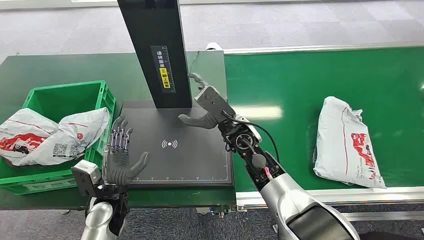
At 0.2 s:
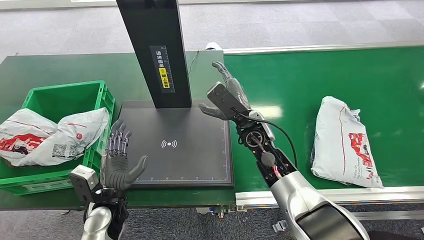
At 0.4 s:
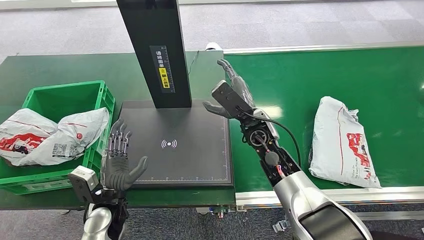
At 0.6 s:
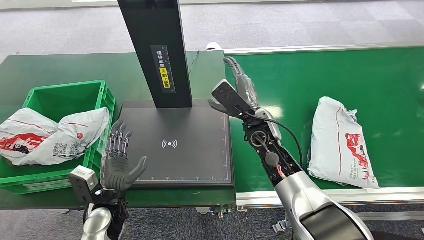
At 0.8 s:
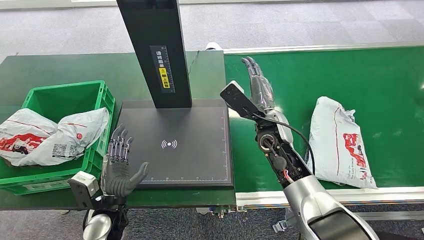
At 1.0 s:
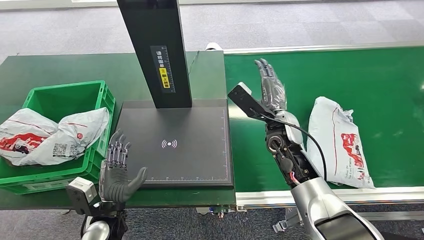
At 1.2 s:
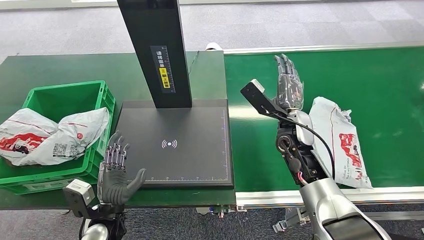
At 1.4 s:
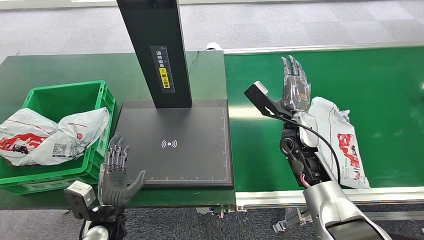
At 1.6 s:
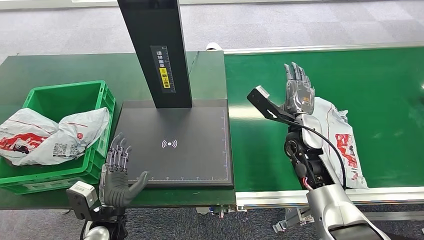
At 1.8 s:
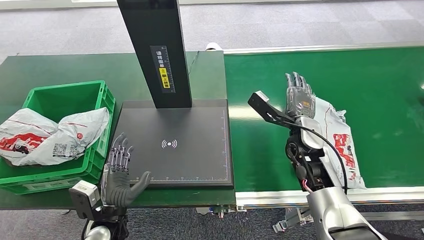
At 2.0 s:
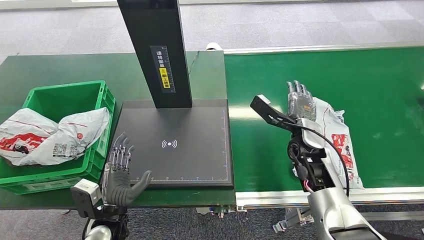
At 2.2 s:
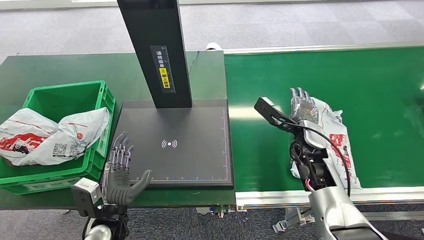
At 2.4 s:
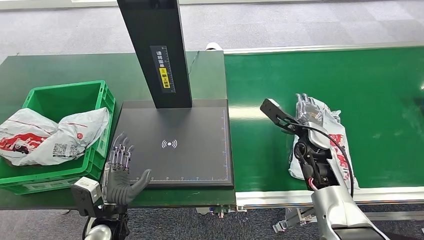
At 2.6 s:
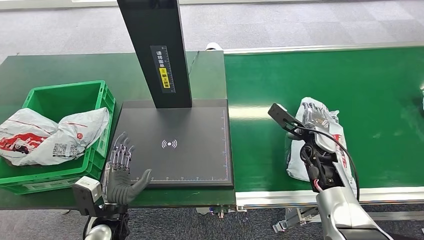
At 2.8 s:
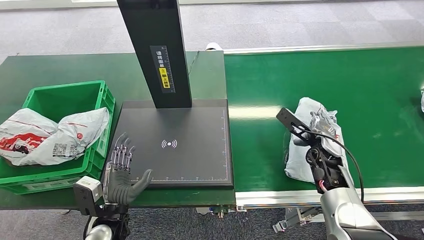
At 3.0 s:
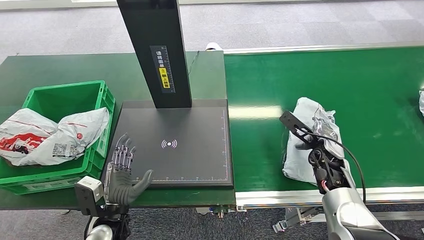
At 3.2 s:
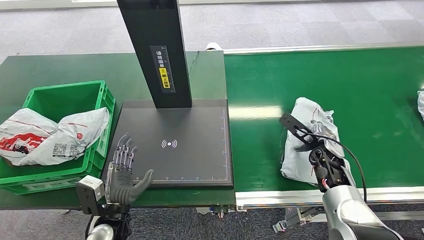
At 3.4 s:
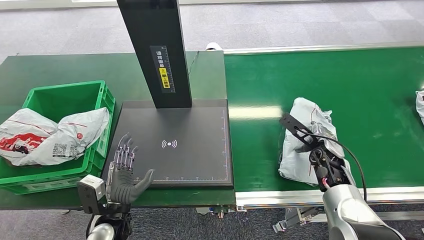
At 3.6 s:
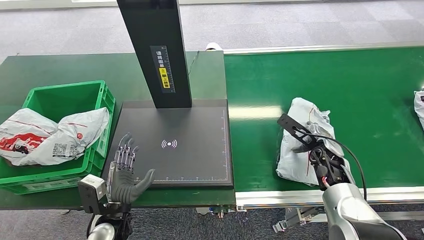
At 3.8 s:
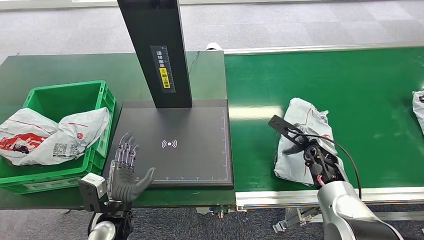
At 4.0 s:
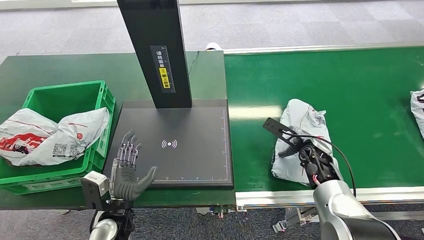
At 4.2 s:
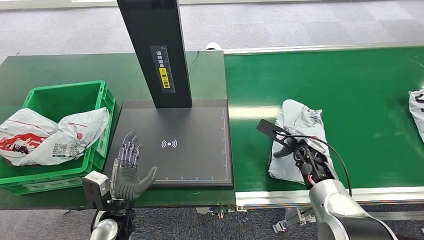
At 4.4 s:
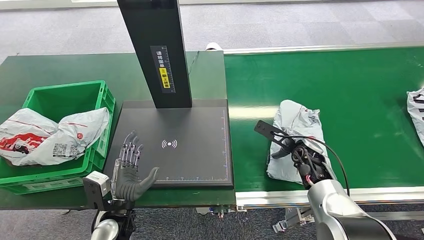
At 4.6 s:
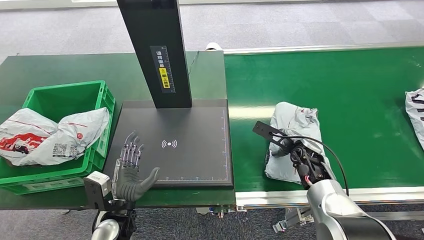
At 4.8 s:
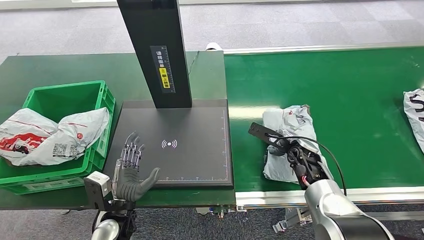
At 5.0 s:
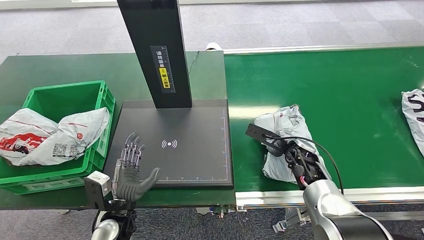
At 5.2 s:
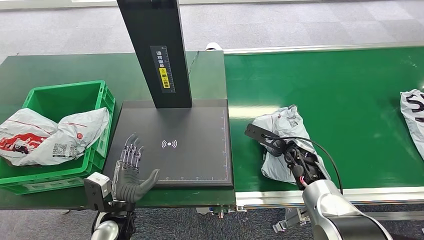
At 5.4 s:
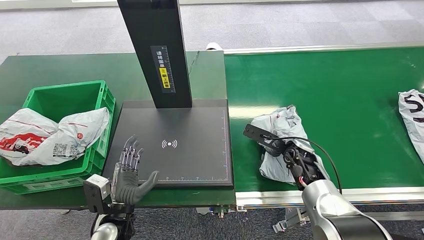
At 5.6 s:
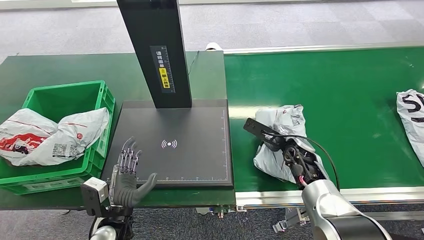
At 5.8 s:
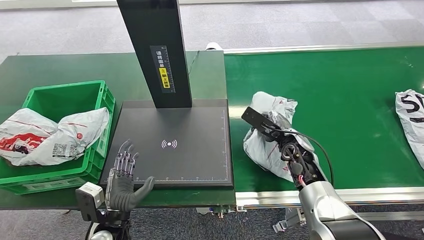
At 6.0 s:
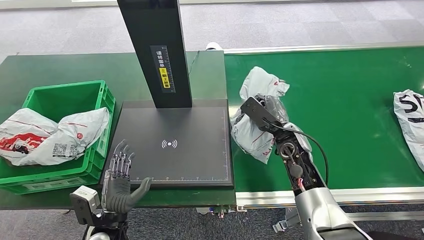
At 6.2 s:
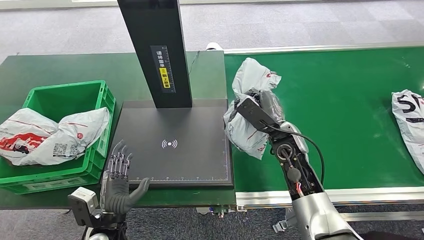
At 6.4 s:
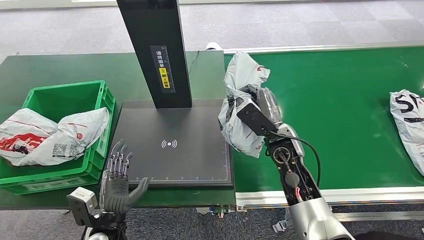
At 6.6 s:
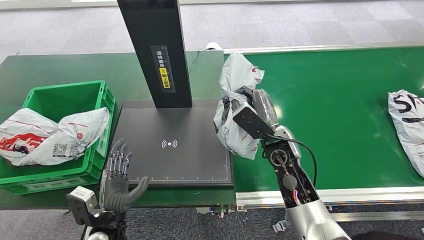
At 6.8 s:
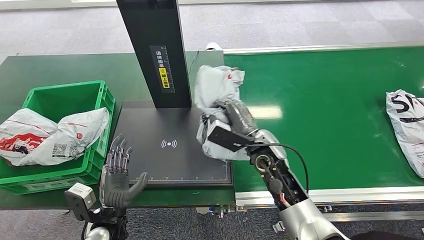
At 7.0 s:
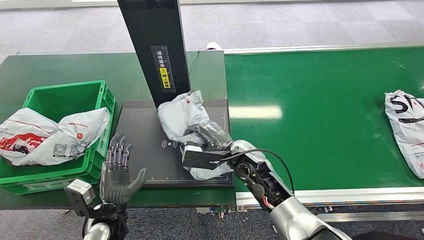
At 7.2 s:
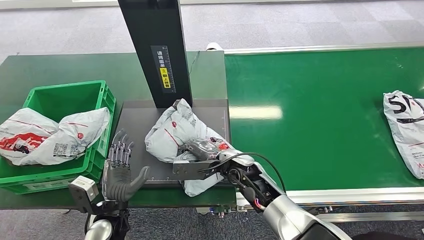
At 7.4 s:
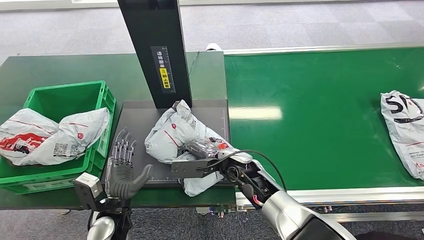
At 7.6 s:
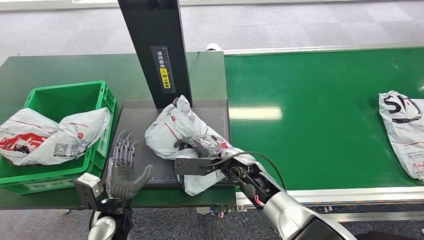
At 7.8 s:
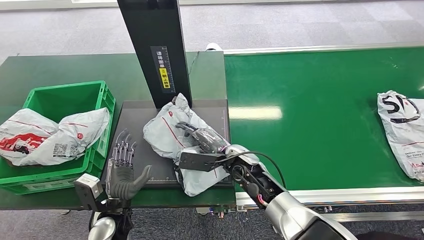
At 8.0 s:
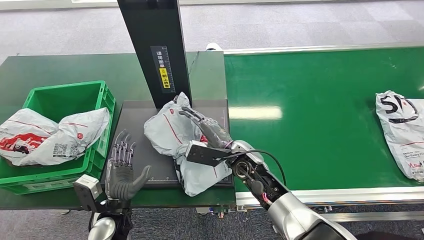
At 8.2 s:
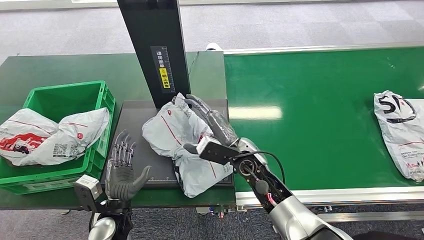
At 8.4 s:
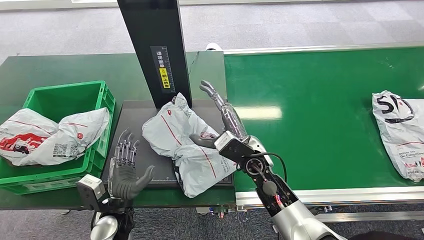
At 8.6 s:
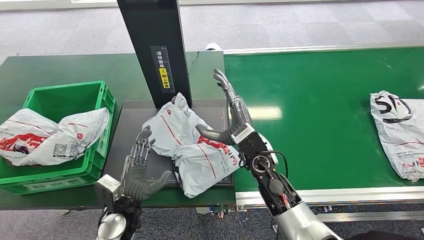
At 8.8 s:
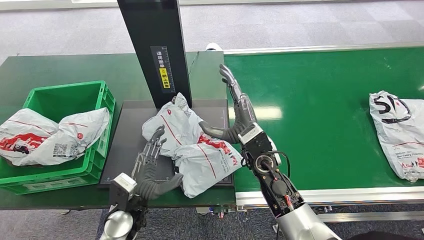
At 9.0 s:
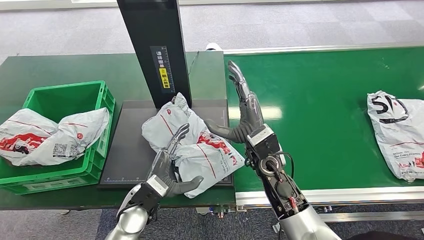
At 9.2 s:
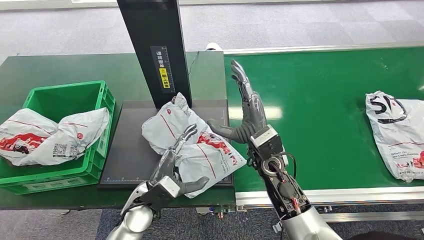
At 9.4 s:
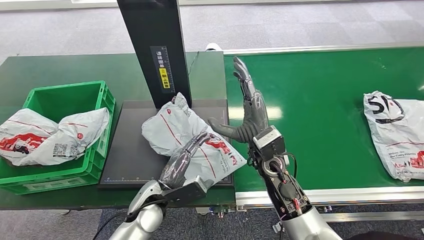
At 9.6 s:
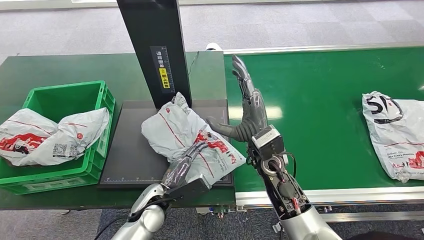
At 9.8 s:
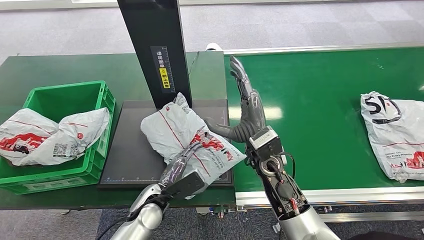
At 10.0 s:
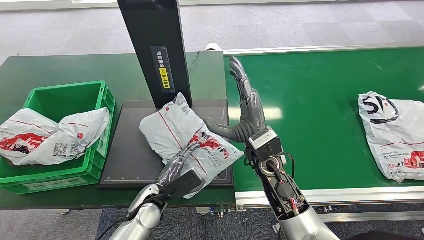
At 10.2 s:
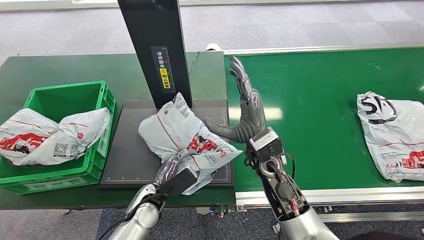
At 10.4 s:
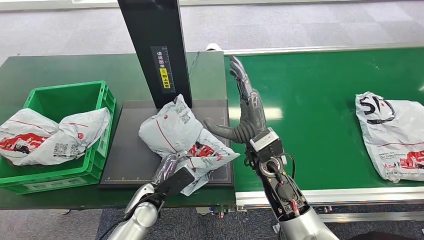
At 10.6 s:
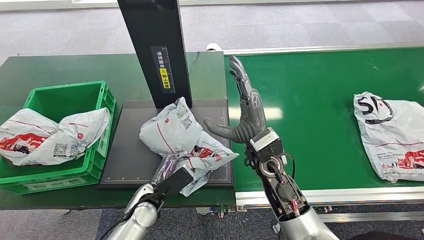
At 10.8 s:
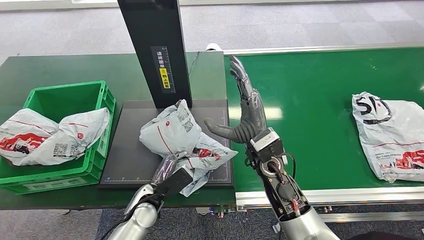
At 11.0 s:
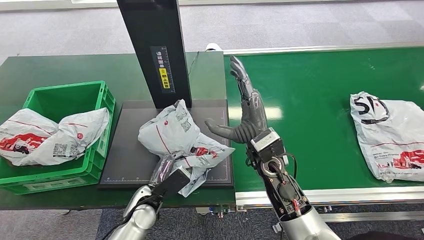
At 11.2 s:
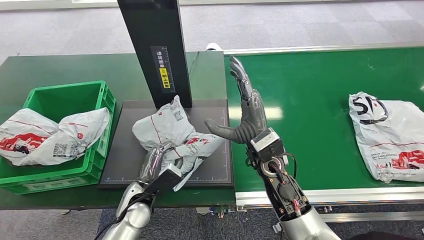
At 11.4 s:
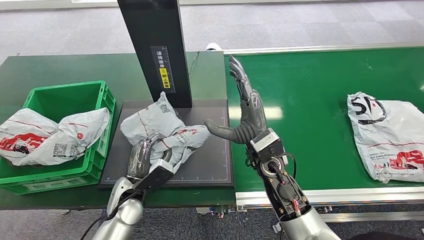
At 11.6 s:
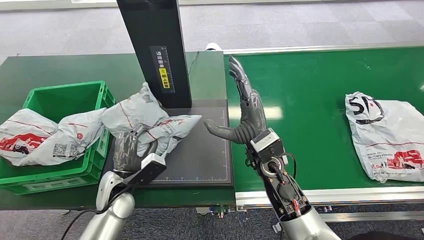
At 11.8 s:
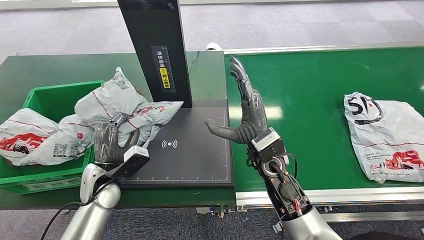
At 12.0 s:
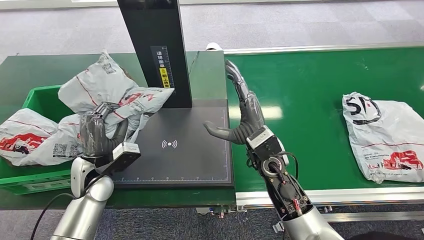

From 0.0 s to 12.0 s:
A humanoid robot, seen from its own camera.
Step, from 0.0 s to 6.4 s: Pick up the package from the conveyor belt.
Step, from 6.6 s to 8.6 s: Place the package onto the inbound machine.
Step, from 8.8 s to 12.0 s: Pick up the package from the inbound machine.
From 1.6 s to 3.0 s: The right hand travels to the right and downward by approximately 10 cm.
From 3.0 s to 4.4 s: The right hand moves about 5 cm.
From 4.4 s to 6.0 s: The right hand heads to the left and upward, covering about 10 cm.
From 7.6 s to 9.0 s: The right hand goes about 5 cm upward, while the left hand heads to the right, covering approximately 5 cm.

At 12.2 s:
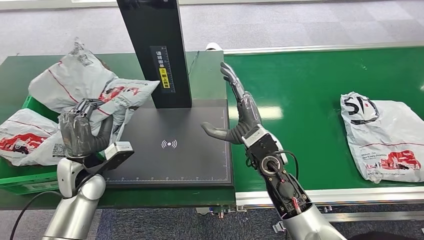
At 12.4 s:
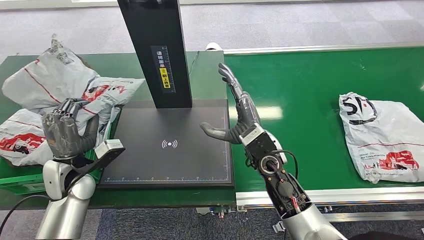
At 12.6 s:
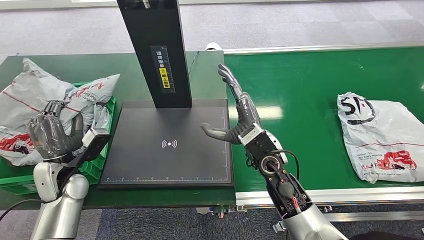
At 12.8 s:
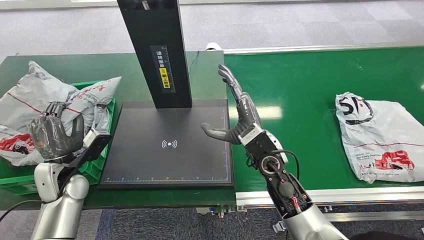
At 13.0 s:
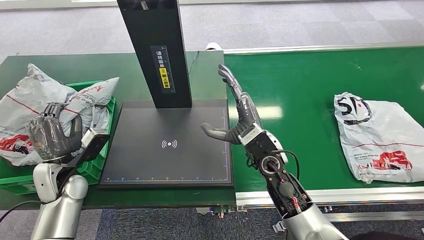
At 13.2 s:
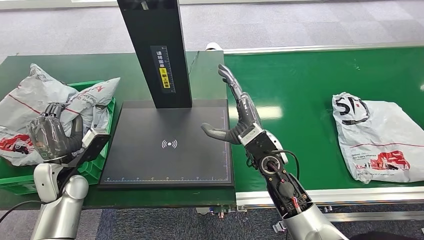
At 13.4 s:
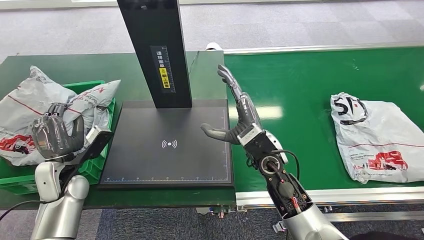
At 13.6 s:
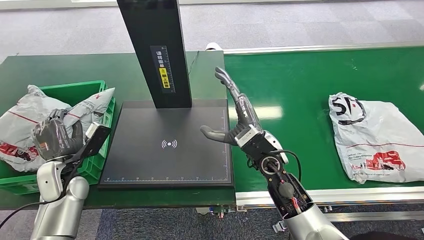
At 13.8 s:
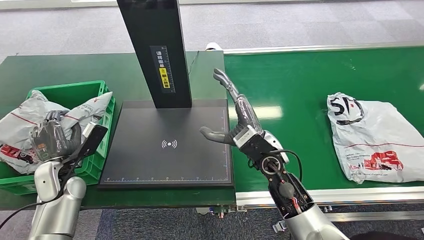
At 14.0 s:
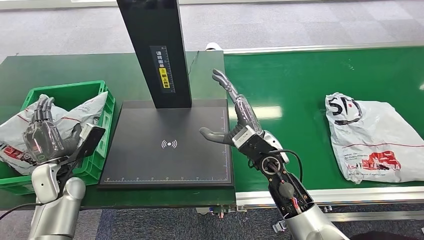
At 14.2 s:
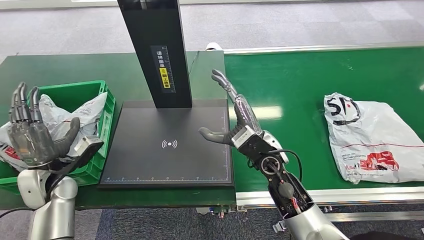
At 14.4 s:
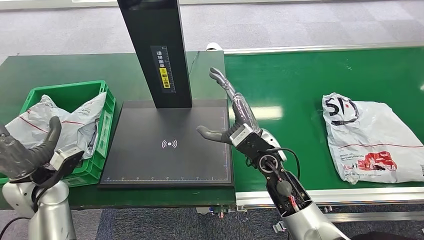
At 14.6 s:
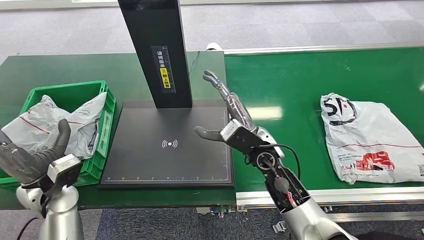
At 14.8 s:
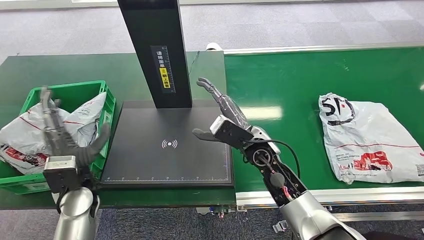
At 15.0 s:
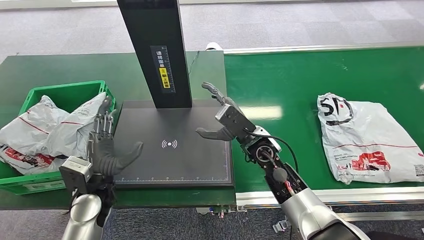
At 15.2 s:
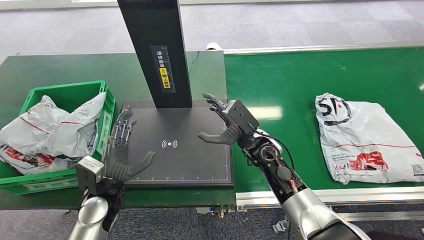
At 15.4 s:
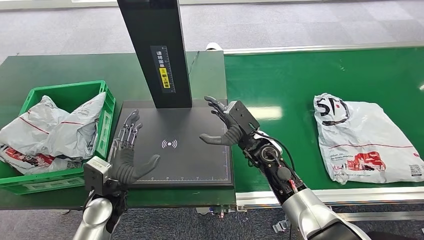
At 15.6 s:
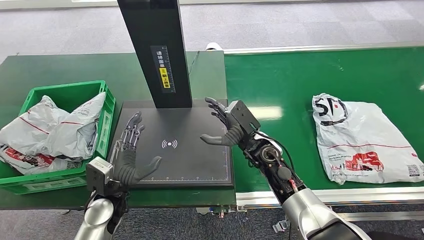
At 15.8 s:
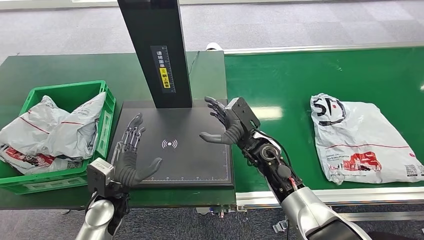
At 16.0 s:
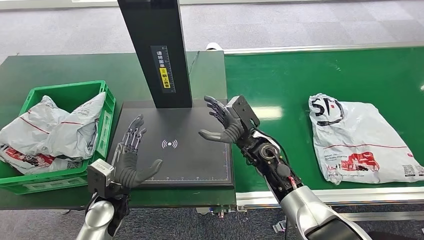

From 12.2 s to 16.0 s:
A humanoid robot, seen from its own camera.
Step, from 12.2 s to 16.0 s: Place the package into the parcel locker.
From 12.2 s to 13.4 s: The left hand goes approximately 5 cm to the left.
From 14.8 s to 16.0 s: The left hand heads downward, covering some 5 cm.

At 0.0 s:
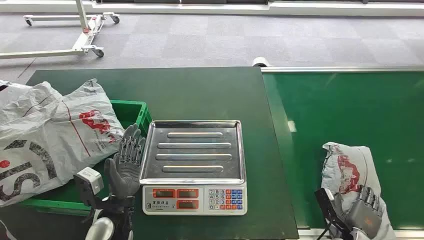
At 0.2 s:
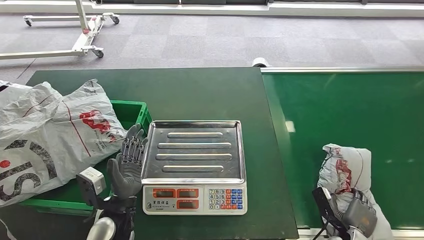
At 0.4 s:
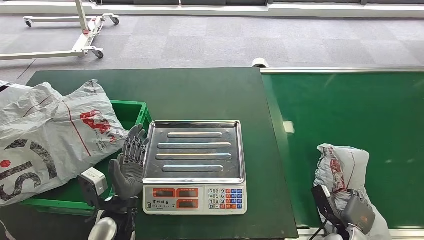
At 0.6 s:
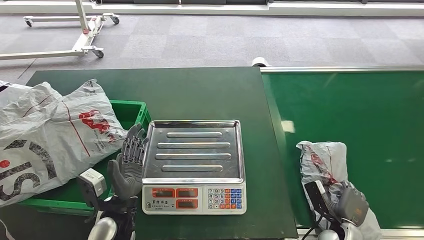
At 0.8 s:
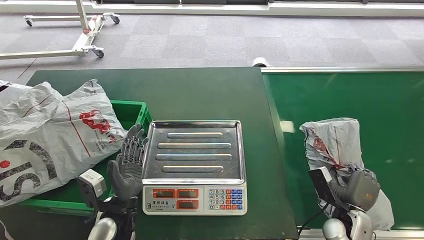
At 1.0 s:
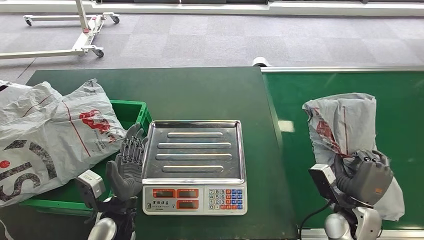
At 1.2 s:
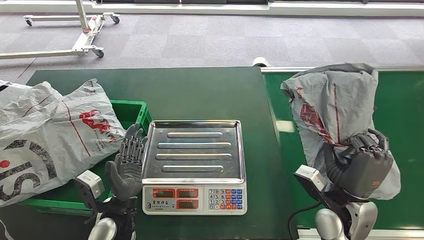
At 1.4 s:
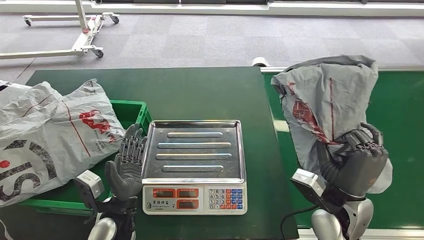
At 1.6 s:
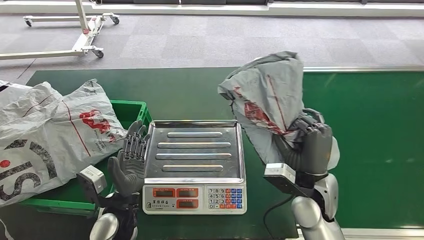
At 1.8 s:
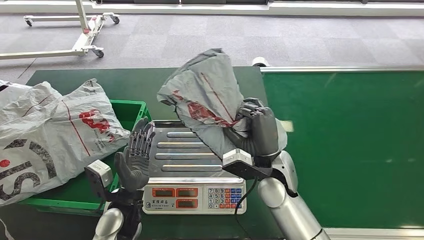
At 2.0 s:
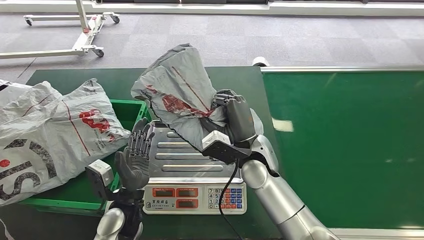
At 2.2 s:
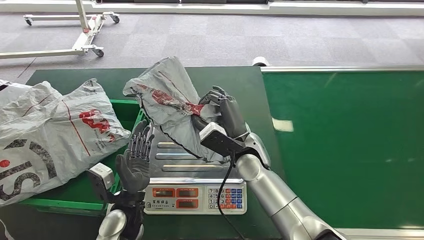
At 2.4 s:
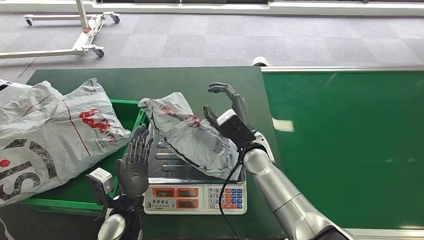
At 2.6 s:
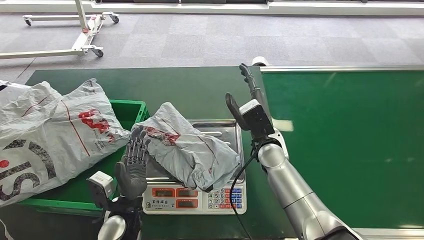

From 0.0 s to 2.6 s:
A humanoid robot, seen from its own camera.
Step, from 0.0 s to 0.8 s: Pick up the package from the conveyor belt.
